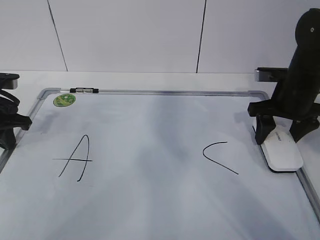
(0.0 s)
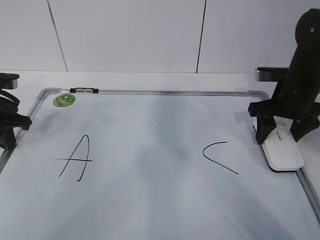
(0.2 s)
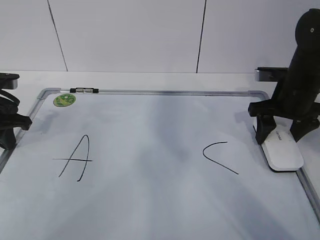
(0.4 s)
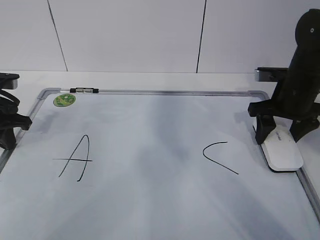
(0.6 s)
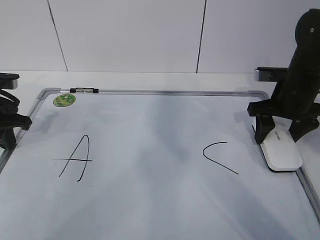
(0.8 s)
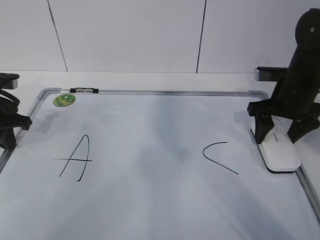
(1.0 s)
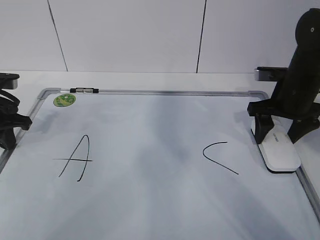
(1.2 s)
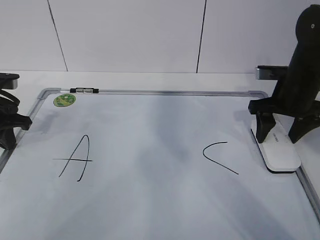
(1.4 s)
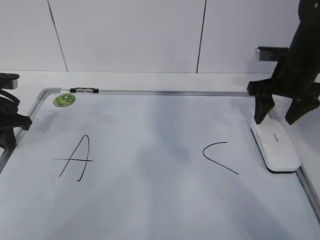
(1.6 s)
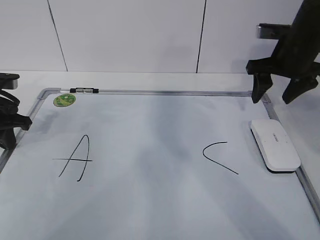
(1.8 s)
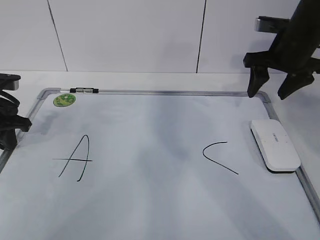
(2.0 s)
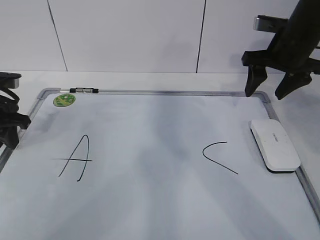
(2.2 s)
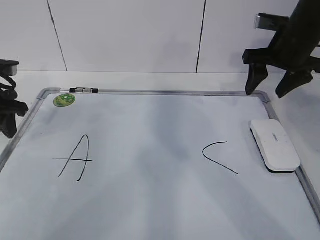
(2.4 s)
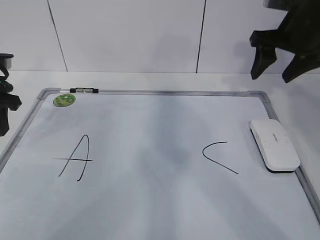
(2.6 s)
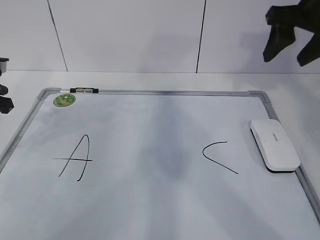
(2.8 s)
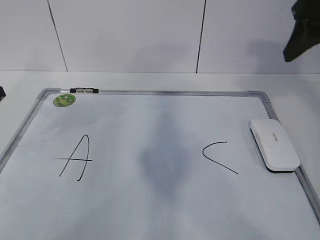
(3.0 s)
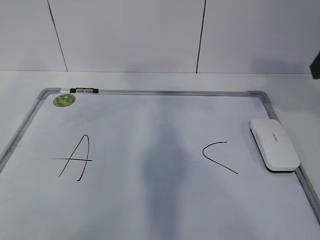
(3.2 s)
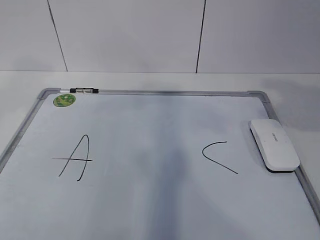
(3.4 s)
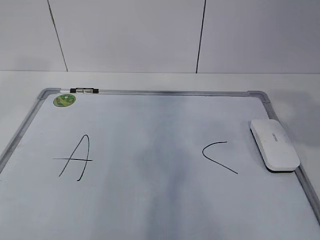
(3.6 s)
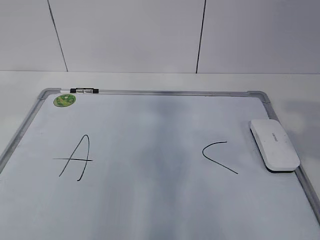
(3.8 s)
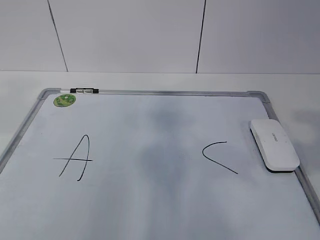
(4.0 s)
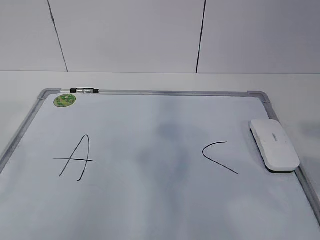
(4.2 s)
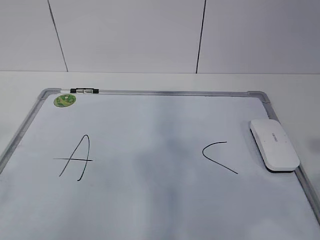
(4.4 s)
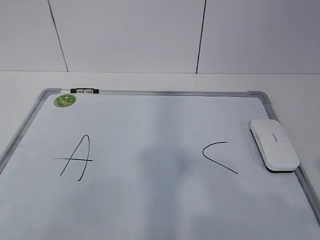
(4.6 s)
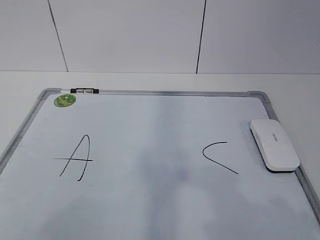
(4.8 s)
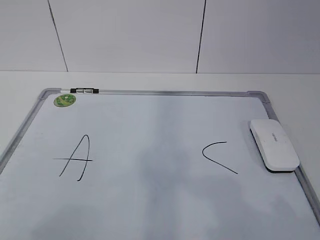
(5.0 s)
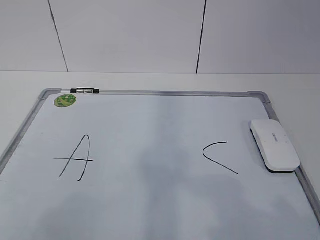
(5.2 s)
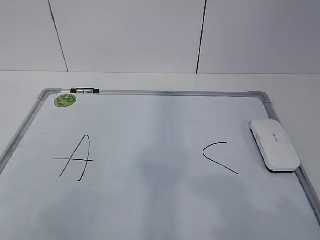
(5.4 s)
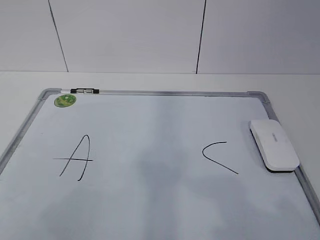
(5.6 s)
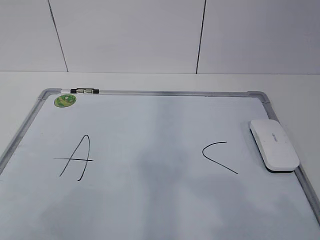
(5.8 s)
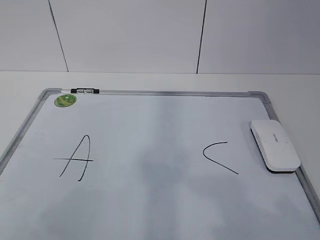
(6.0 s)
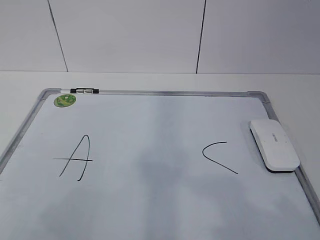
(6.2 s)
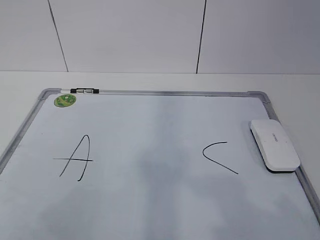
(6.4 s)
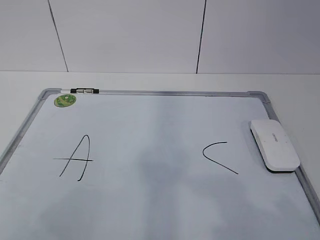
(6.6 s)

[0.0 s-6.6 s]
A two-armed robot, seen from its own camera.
Task of the whole recording: pick up the eraser on the blackboard and erase the letter "B".
0.0 to 1.6 s: The grippers move only a little.
1.6 to 3.2 s: The right gripper travels upward and backward by some 20 cm. Meanwhile the left gripper travels upward by about 15 cm, and opens up.
3.2 to 5.0 s: The two grippers go some 30 cm backward.
